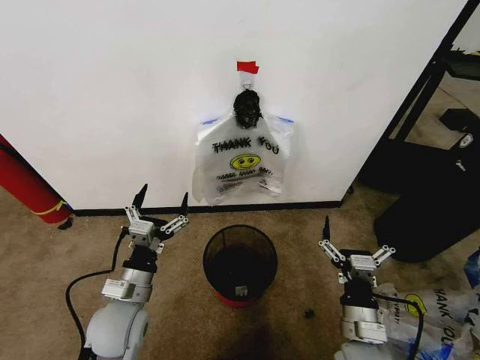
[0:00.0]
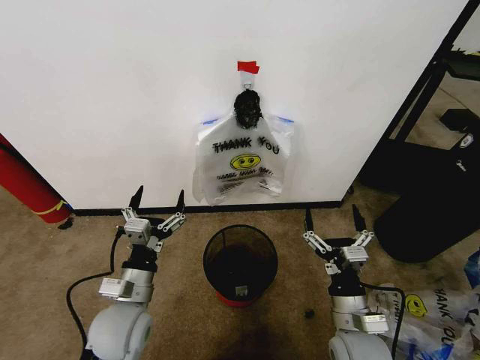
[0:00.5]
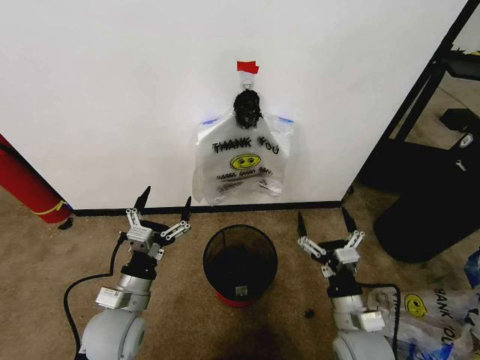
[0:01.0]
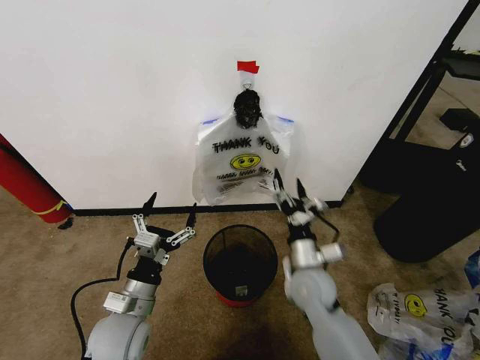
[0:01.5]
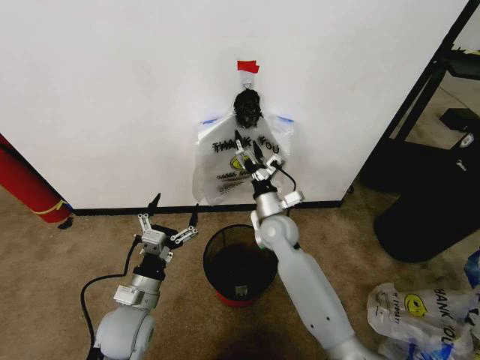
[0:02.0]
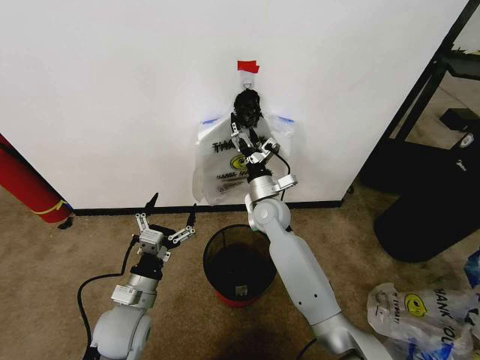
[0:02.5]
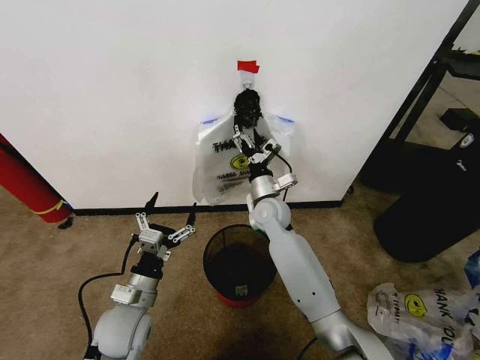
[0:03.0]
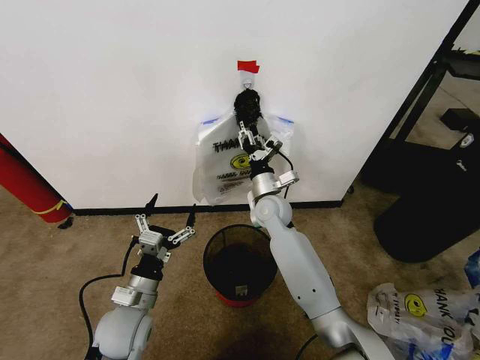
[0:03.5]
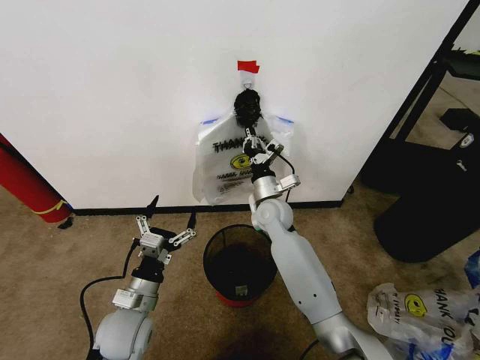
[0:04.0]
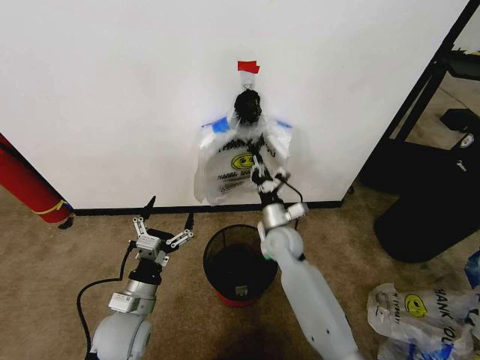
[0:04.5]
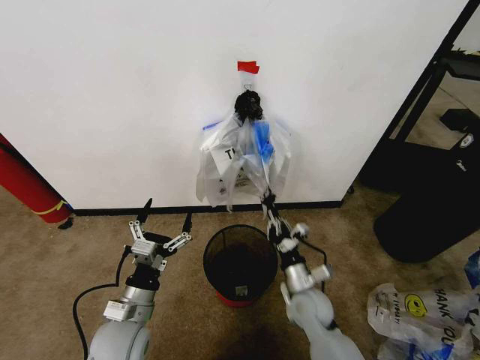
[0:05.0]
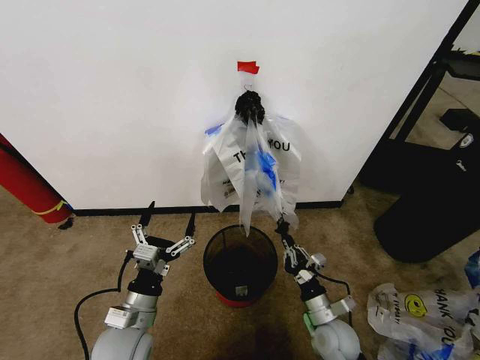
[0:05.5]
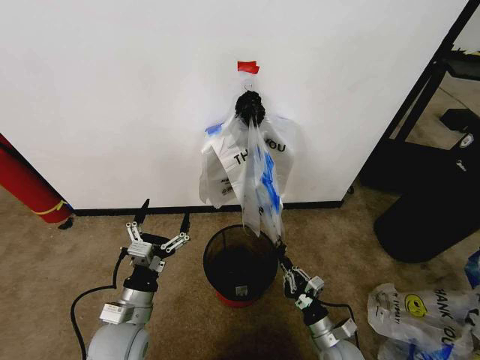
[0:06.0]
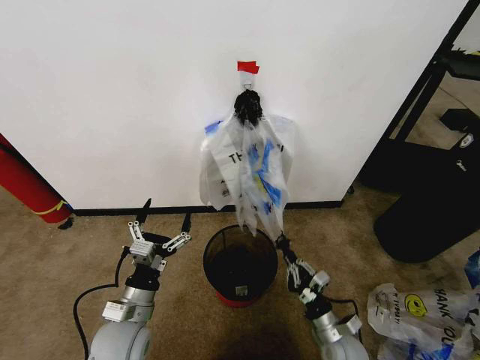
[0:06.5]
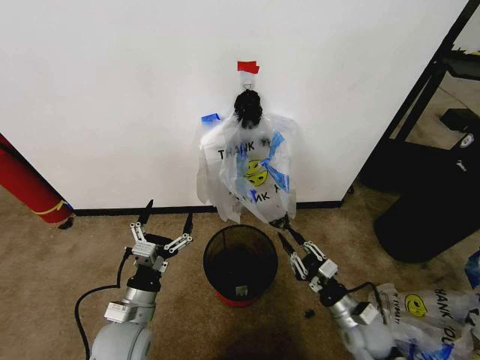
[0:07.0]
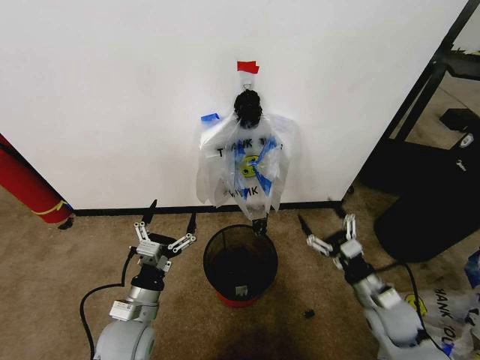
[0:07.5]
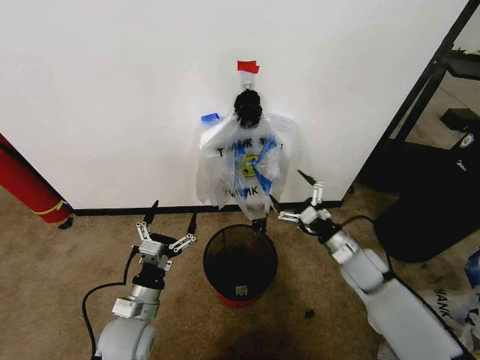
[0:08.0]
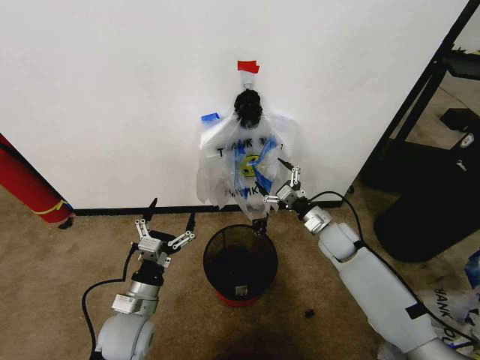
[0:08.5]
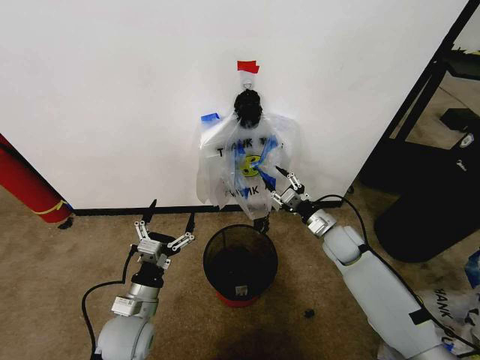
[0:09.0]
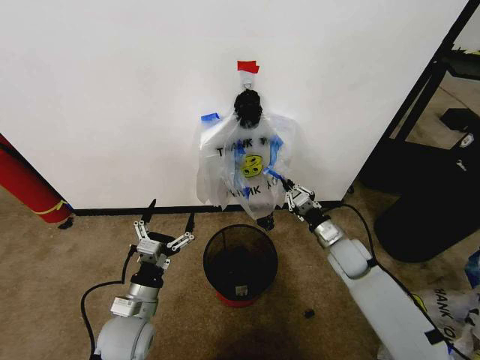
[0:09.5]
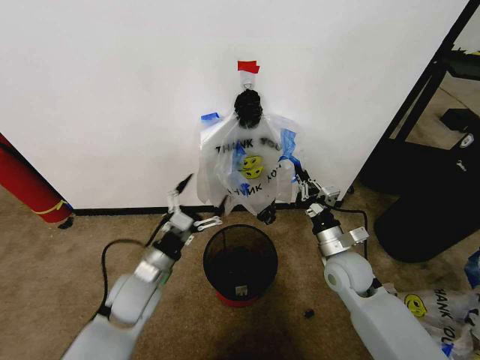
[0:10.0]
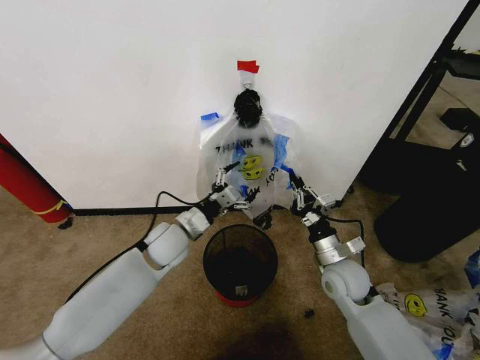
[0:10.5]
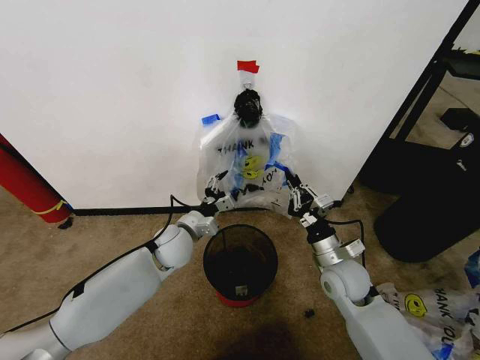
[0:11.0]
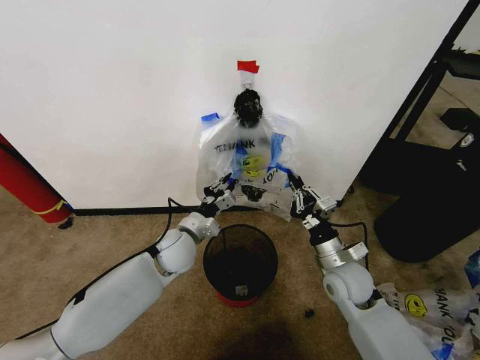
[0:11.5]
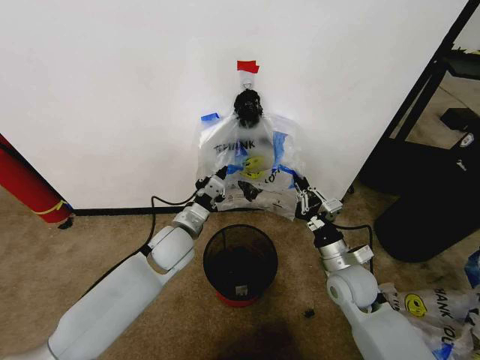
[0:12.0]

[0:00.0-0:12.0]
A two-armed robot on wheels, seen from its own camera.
Task of the whole recording: Pick up the garbage bag from the wall and place it over the trash bin.
0:02.0 to 0:04.0: The right gripper closes up.
0:04.0 to 0:06.0: The right gripper heads backward, downward and to the right, covering roughly 40 cm.
0:06.0 to 0:08.0: The right gripper moves forward and upward, approximately 25 cm, and opens up.
0:08.0 to 0:10.0: The left gripper moves forward, roughly 5 cm; the right gripper moves to the left, roughly 5 cm, goes forward and returns, approximately 5 cm each way, and closes up.
0:10.0 to 0:12.0: The left gripper heads forward and to the right, covering about 10 cm, and closes.

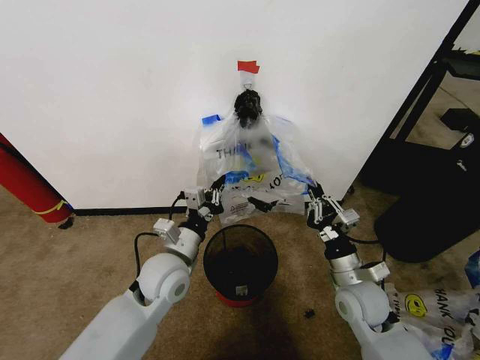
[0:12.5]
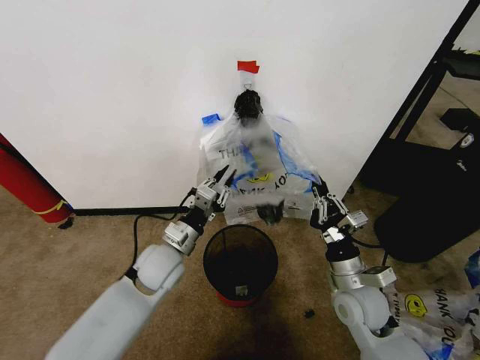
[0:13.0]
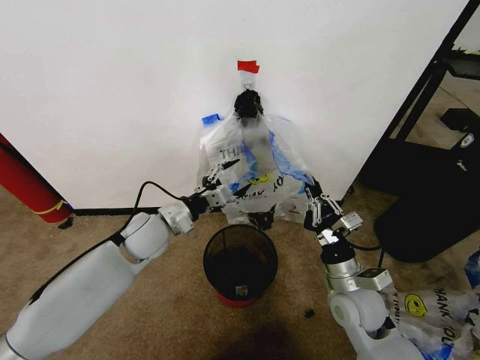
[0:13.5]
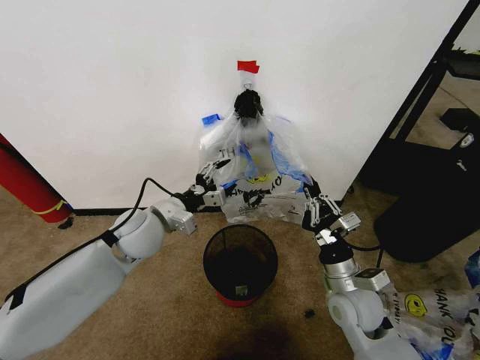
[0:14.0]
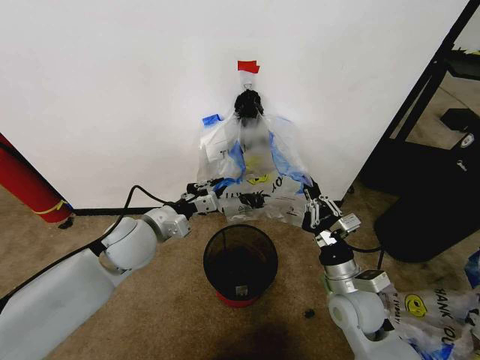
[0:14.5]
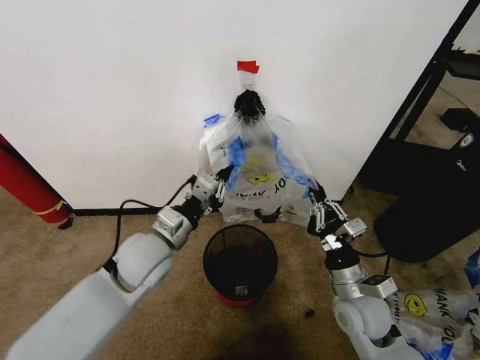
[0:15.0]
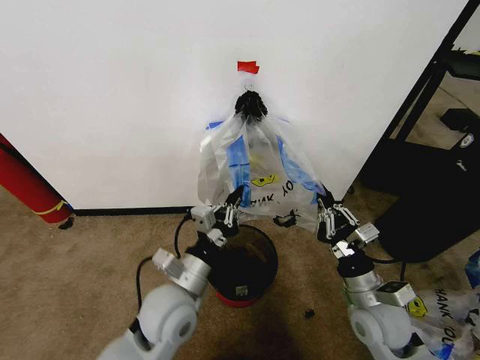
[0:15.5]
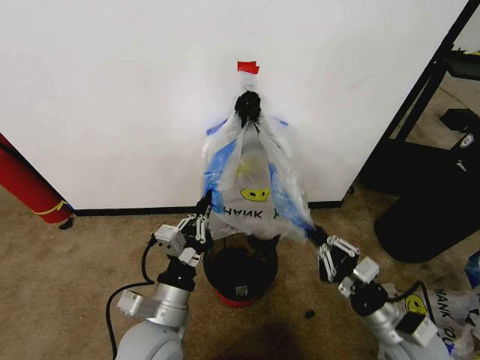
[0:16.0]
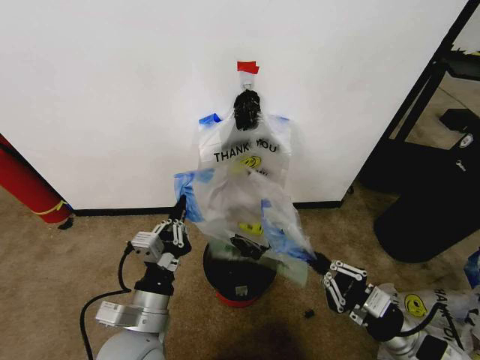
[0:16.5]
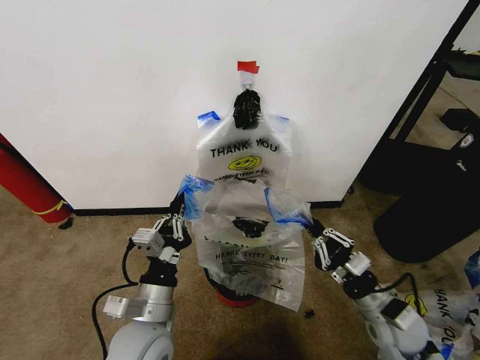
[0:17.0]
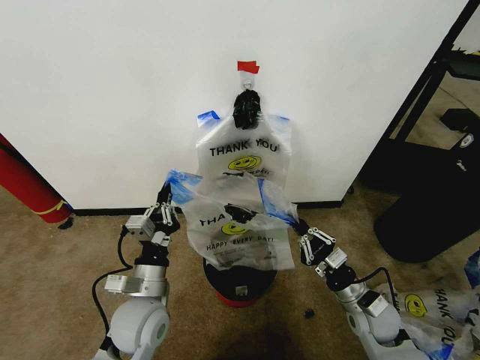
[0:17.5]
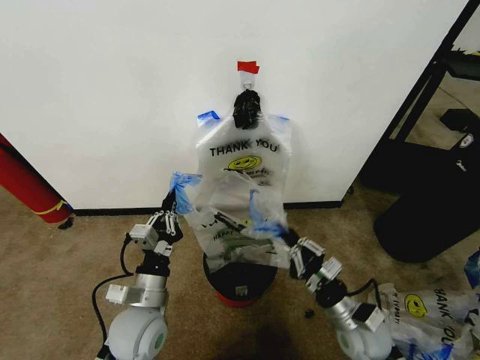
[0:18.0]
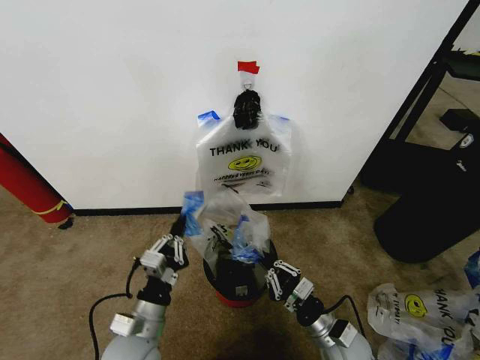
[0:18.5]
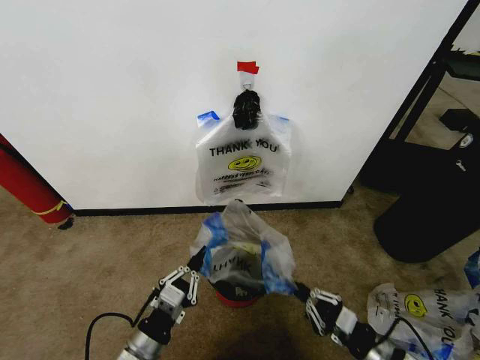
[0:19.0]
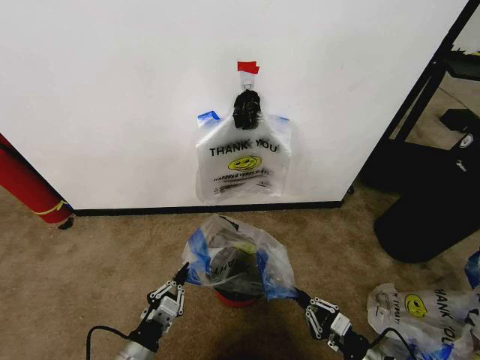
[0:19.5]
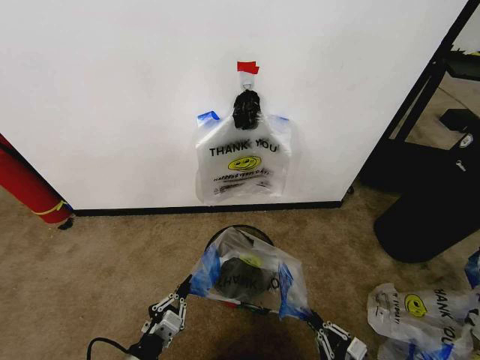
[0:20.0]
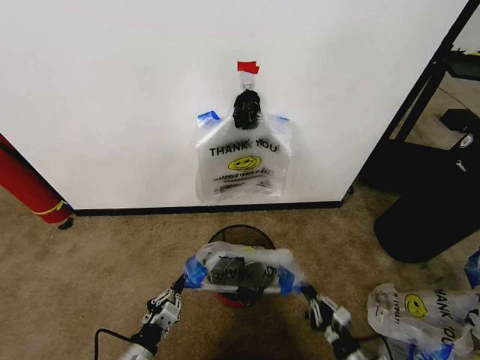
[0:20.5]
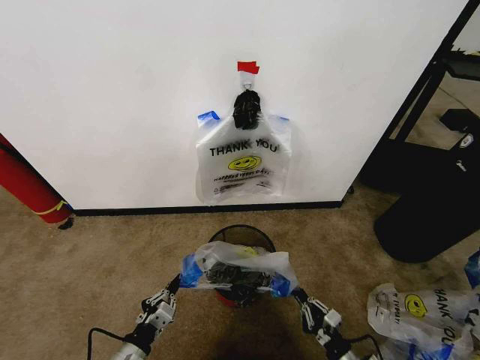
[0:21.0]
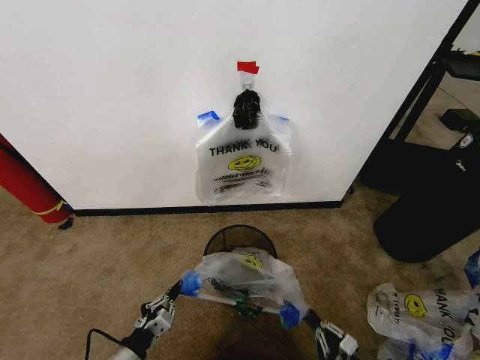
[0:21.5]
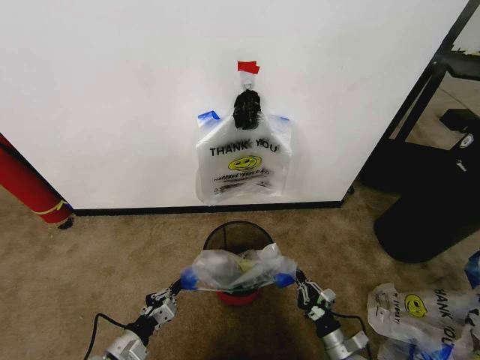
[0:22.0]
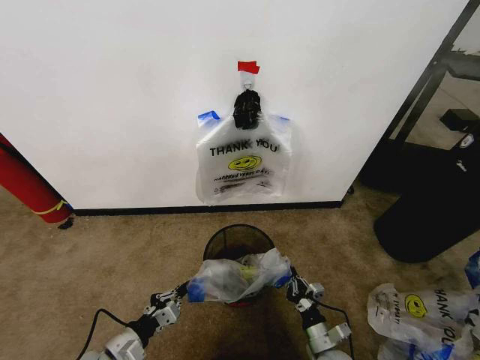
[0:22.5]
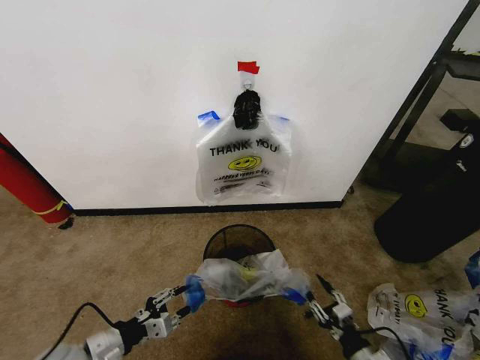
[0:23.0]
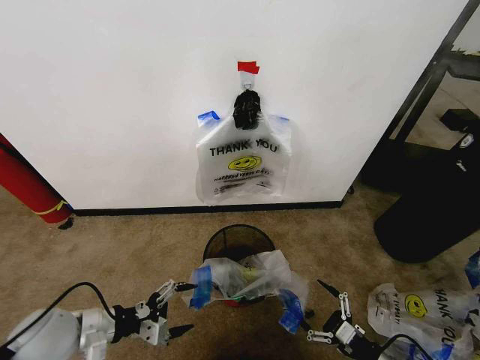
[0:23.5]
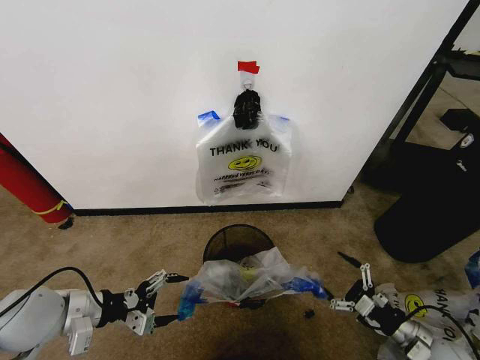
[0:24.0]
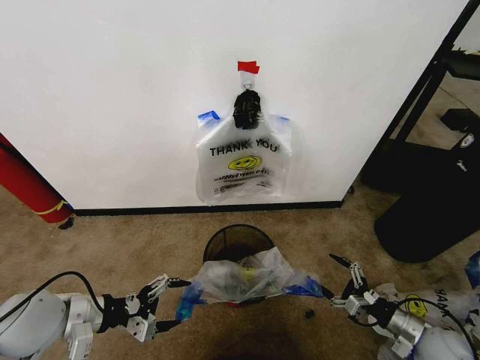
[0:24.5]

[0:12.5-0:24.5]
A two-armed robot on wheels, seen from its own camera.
Task of the whole recording: Pick up the garbage bag from the wall and place it over the trash bin.
0:12.5 to 0:14.5: The left gripper moves to the left and upward, approximately 10 cm, and opens and closes again.
0:14.5 to 0:16.5: The right gripper is displaced to the right and backward by approximately 15 cm, while the left gripper heads backward, covering approximately 20 cm.
0:16.5 to 0:18.5: The left gripper goes some 10 cm downward. The right gripper moves downward and to the left, roughly 15 cm.
0:18.5 to 0:20.5: The left gripper is displaced downward, to the left and backward by about 10 cm, while the right gripper moves backward, downward and to the right, approximately 15 cm.
0:20.5 to 0:22.5: The left gripper shifts by approximately 5 cm. The right gripper goes about 10 cm to the left and forward.
0:22.5 to 0:24.5: The right gripper heads to the right and upward, covering roughly 25 cm, and opens up. The left gripper shifts approximately 15 cm upward, and opens up.

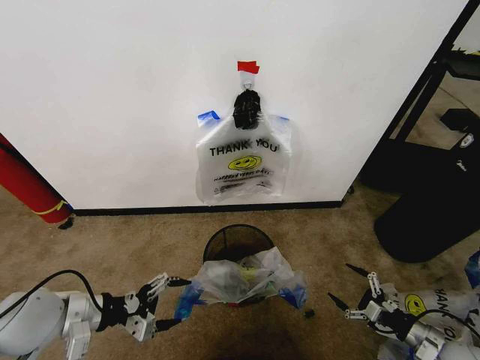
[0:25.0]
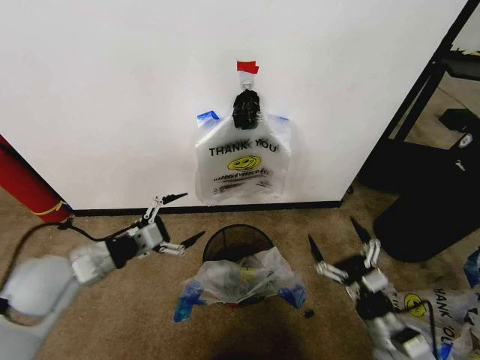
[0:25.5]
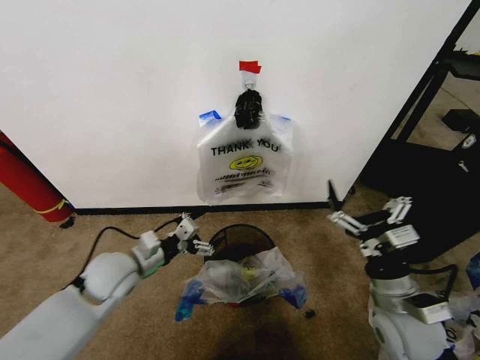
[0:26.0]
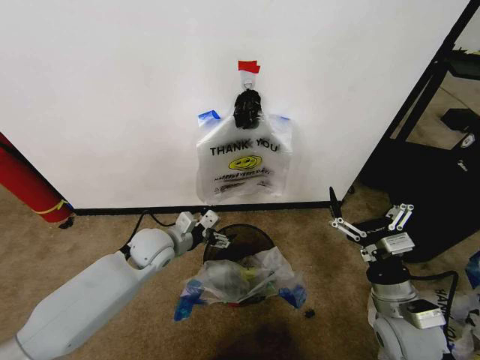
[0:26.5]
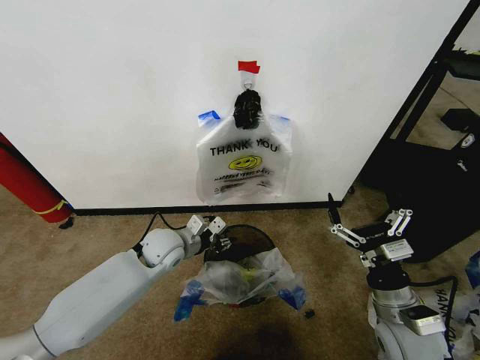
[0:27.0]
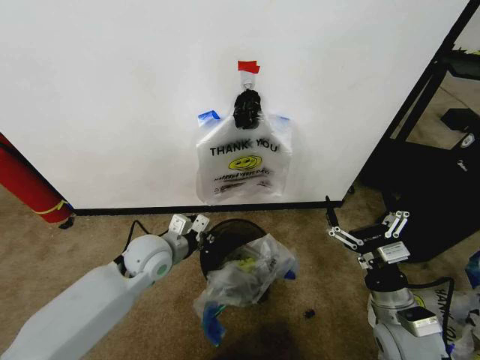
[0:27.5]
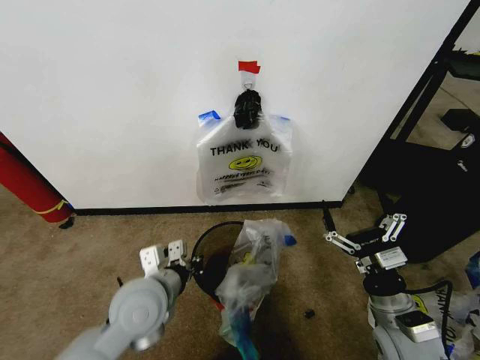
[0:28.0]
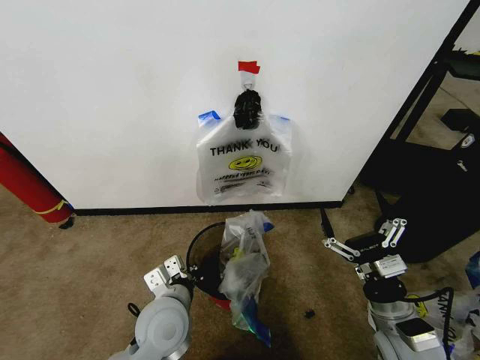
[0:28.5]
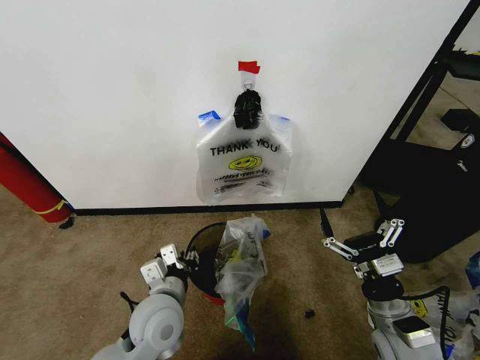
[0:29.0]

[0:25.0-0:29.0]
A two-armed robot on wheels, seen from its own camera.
Task of the whole recording: Pick up the garbage bag from the wall and place it over the trash bin.
0:25.0 to 0:27.0: The left gripper is displaced to the right and forward by roughly 25 cm, and closes. The right gripper goes roughly 20 cm to the left and upward.
0:27.0 to 0:29.0: The left gripper is displaced backward by about 15 cm, and closes, then reopens.
